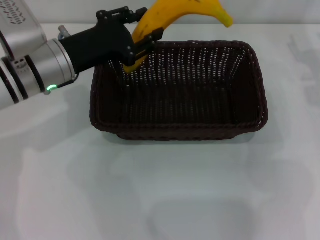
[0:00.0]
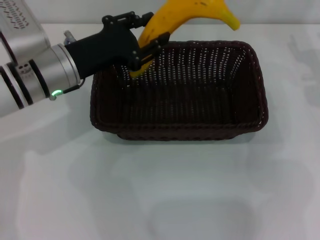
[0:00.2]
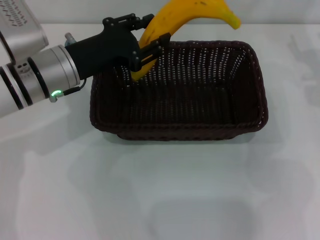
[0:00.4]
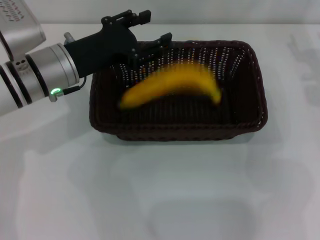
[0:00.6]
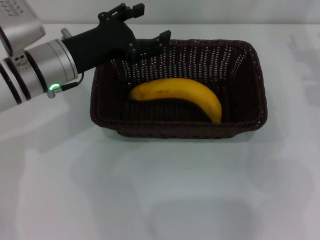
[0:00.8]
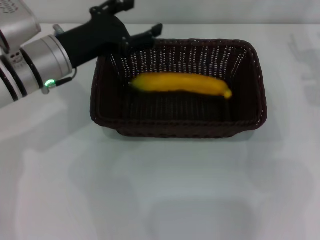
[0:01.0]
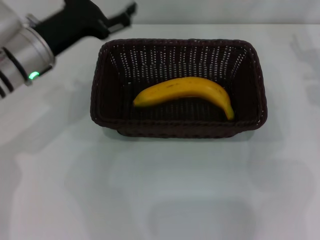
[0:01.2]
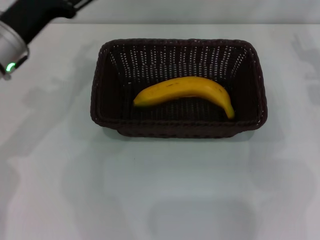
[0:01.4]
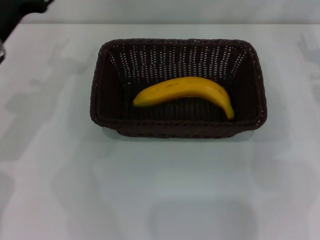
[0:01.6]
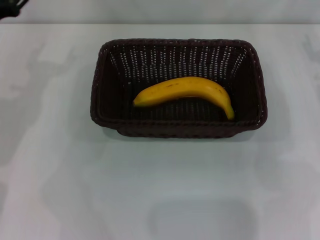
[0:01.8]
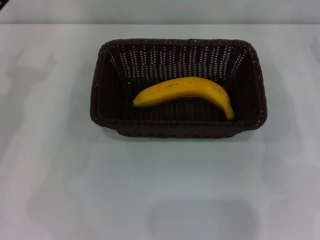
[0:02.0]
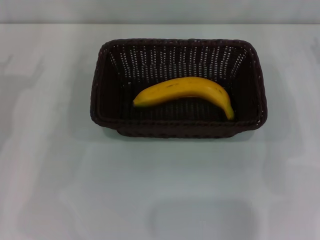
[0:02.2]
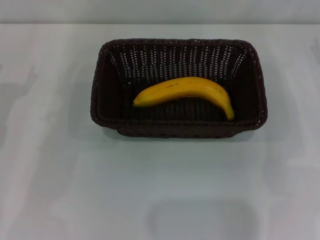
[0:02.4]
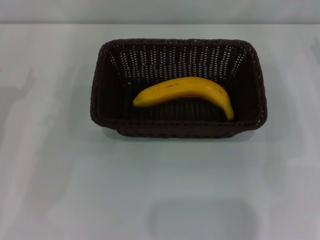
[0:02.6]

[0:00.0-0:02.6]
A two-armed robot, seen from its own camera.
0:00.0 to 0:01.2: The left gripper opens its fingers.
0:01.2 to 0:02.6: The left gripper is displaced to the left and backward by about 15 cm.

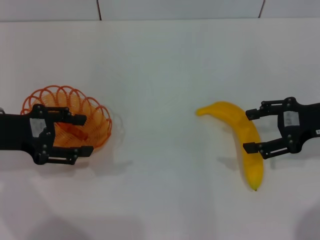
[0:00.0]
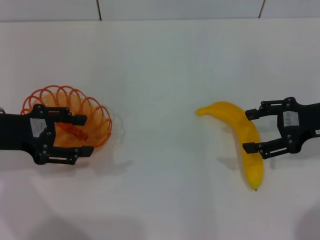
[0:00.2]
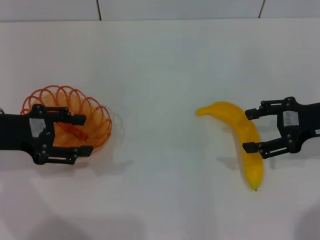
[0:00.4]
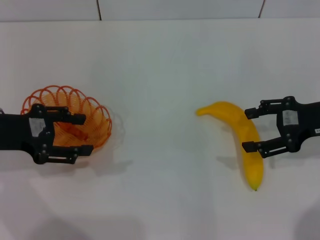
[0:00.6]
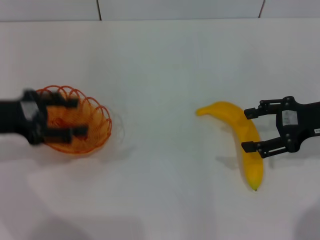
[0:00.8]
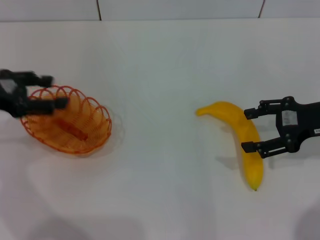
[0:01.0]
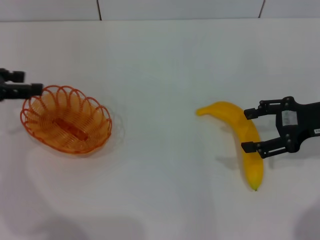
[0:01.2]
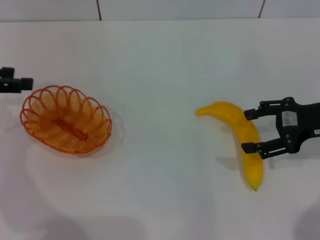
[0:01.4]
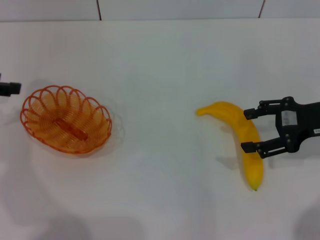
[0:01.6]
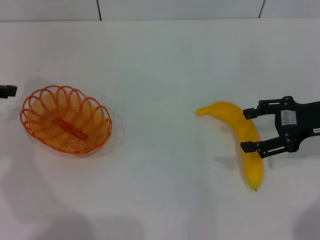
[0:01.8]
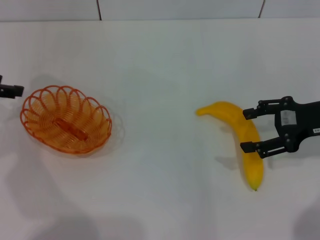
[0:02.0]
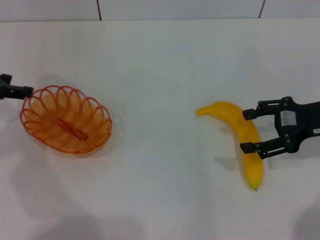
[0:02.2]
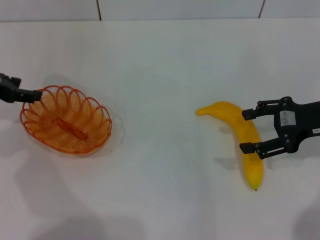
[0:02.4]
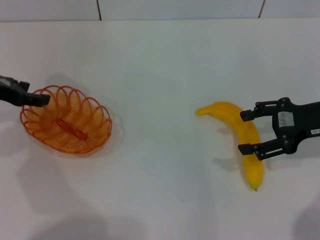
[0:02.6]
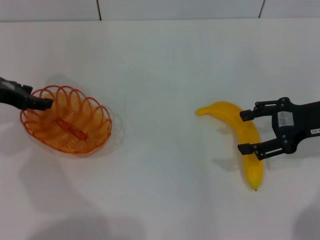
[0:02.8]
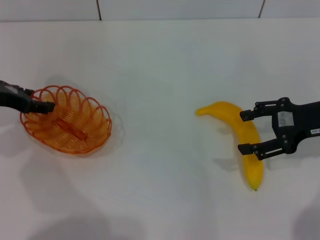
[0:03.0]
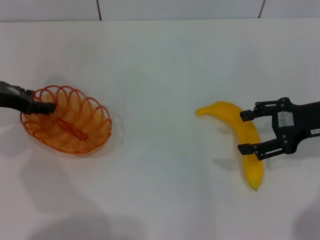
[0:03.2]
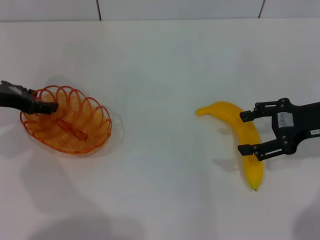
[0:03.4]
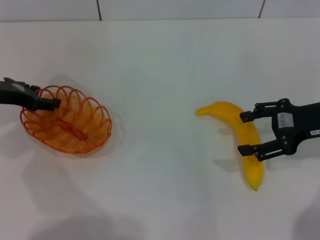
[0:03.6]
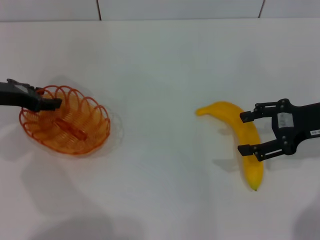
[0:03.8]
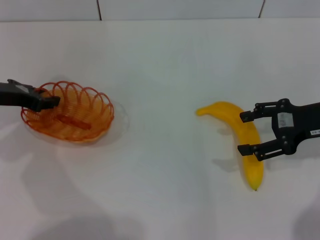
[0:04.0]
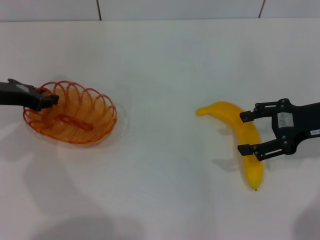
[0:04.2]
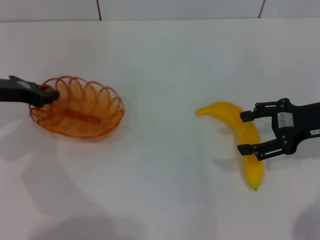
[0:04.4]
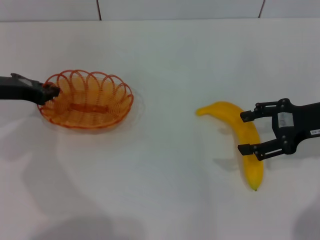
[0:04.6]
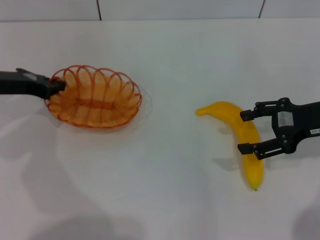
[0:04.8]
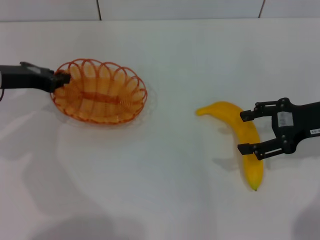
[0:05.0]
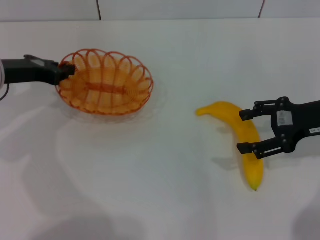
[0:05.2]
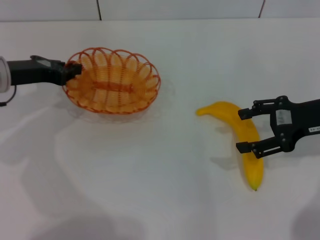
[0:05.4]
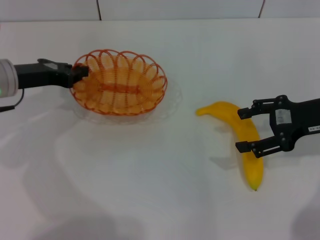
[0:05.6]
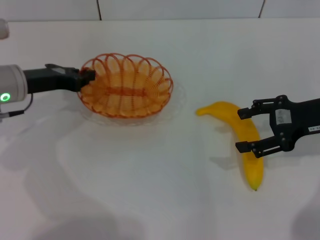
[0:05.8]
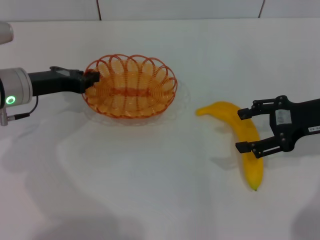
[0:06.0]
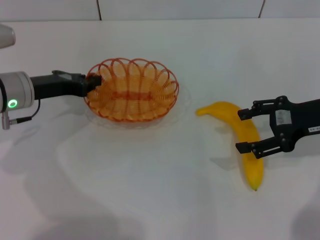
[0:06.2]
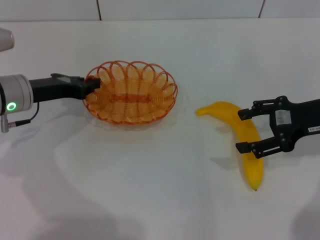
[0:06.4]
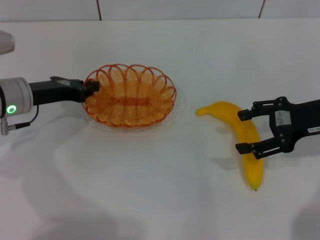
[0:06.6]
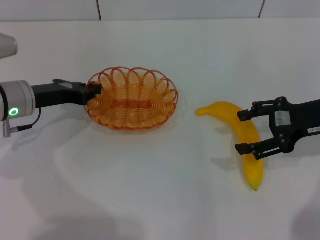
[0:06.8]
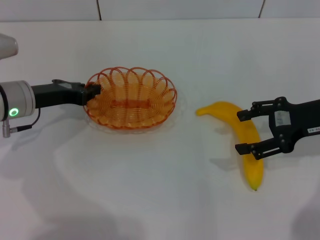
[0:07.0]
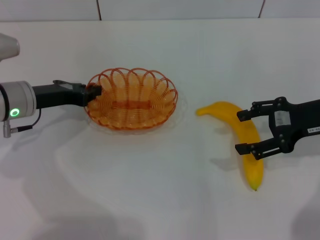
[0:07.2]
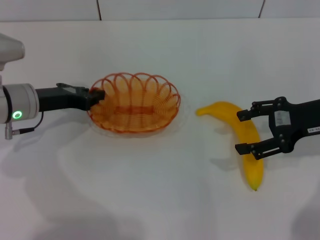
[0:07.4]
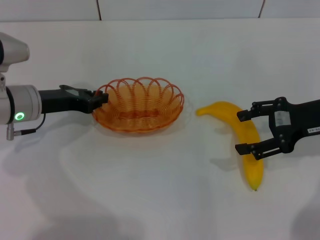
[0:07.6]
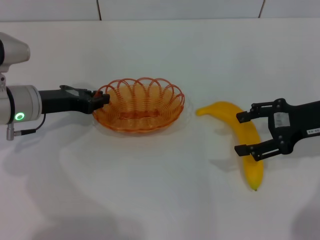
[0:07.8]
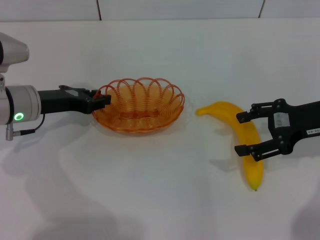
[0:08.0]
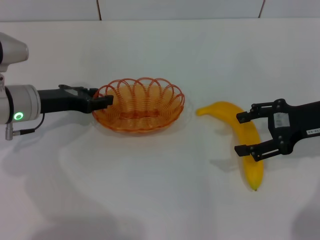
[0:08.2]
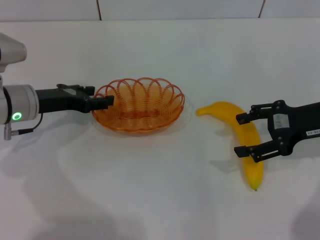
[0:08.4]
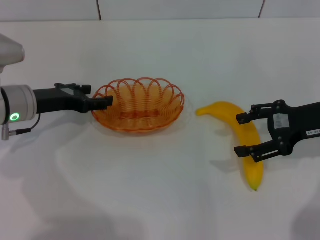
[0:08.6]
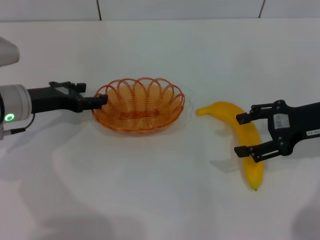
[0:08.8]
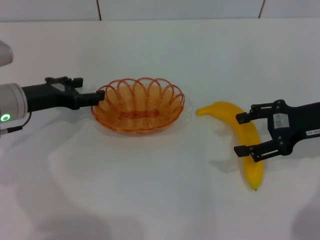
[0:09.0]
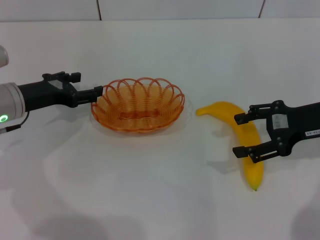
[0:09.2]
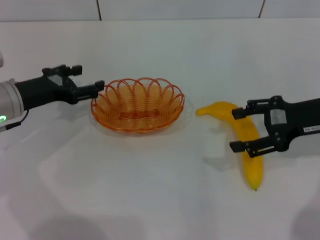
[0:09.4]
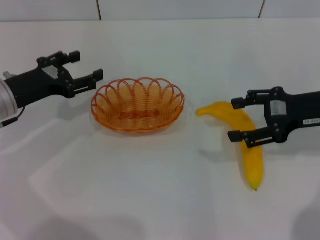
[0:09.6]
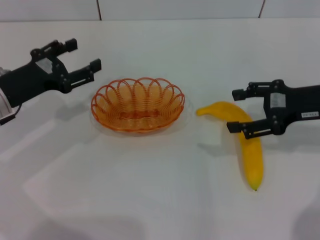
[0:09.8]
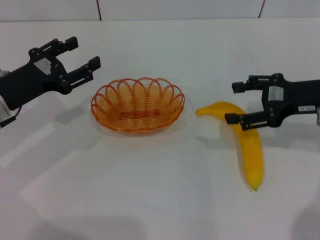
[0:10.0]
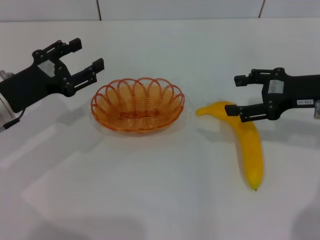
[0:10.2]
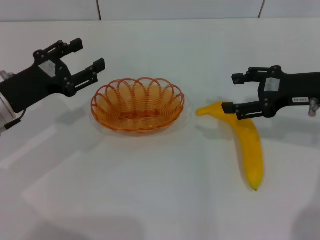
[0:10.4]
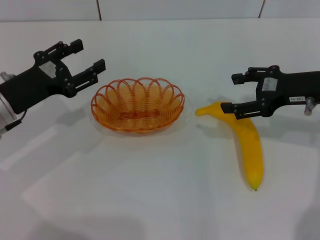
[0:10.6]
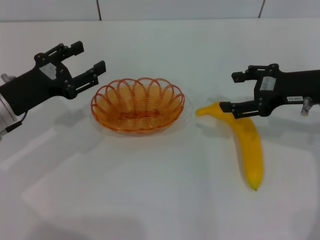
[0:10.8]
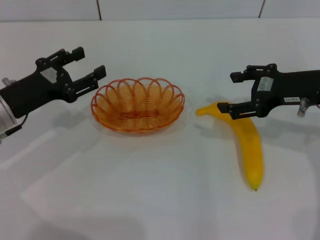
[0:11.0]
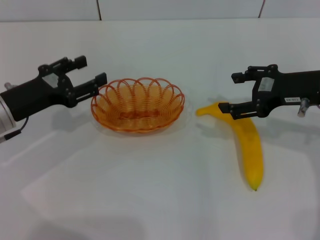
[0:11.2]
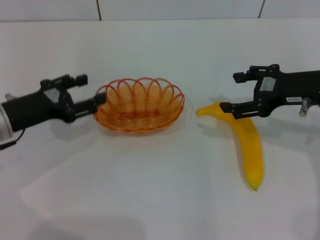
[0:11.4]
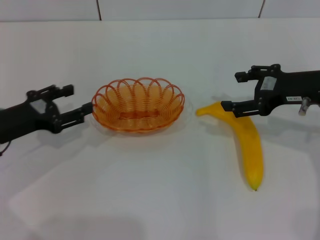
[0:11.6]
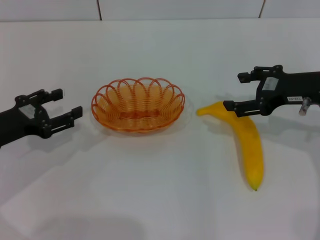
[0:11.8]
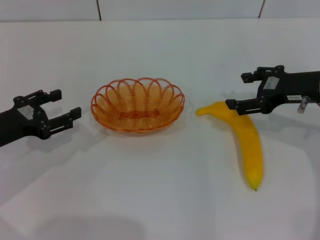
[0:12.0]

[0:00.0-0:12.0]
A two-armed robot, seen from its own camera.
Step, 0:00.0 to 0:05.2: Pick up the basket with the left gripper.
Step, 0:05.4 to 0:08.6: Place the basket in the center of view with the left gripper.
0:00.0 to 0:01.6: The left gripper shifts some 10 cm to the left and upward.
0:01.6 to 0:03.0: The left gripper heads downward, covering some 5 cm.
0:03.0 to 0:04.4: The left gripper closes.
0:04.4 to 0:06.0: The grippers make only small movements.
0:06.0 to 0:07.6: There are only small adjustments of the grippers.
0:07.6 to 0:09.0: The left gripper opens up.
0:10.4 to 0:12.0: The left gripper shifts by roughly 5 cm.

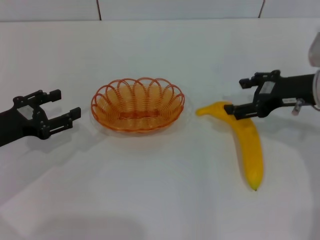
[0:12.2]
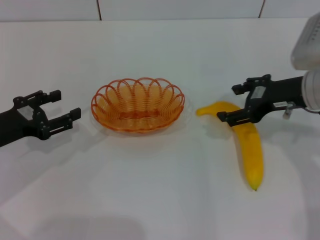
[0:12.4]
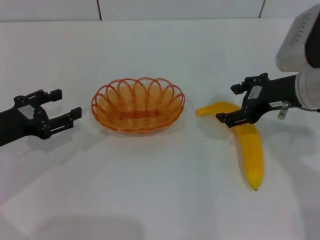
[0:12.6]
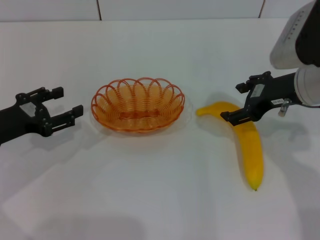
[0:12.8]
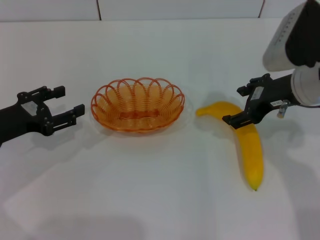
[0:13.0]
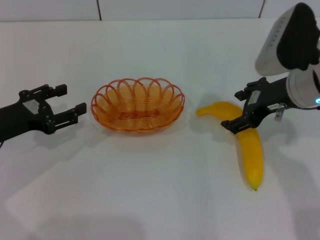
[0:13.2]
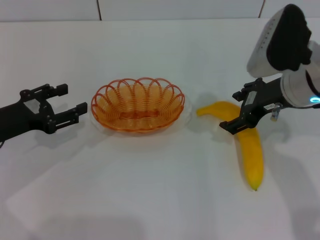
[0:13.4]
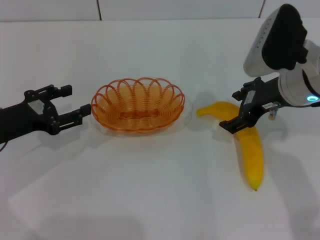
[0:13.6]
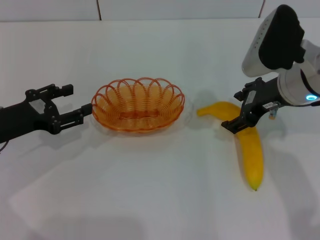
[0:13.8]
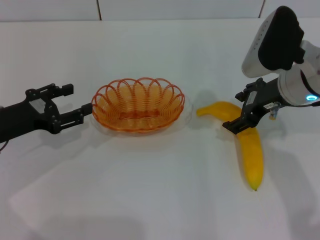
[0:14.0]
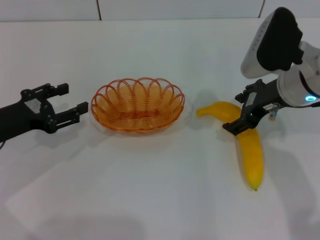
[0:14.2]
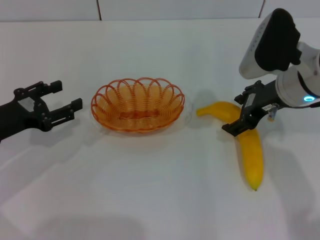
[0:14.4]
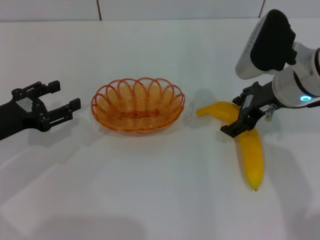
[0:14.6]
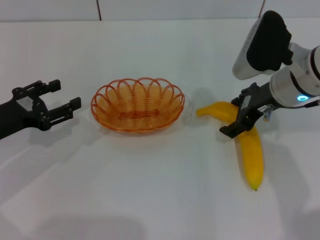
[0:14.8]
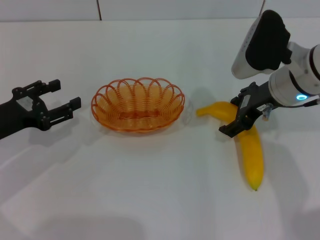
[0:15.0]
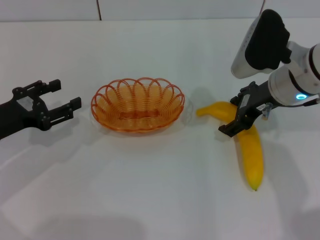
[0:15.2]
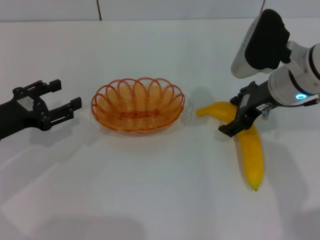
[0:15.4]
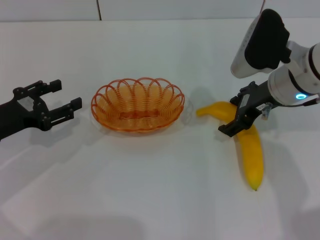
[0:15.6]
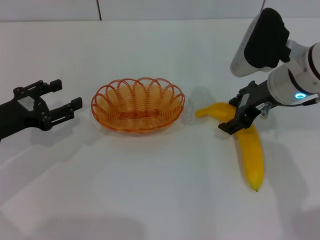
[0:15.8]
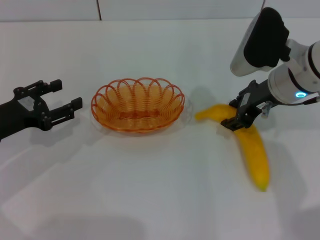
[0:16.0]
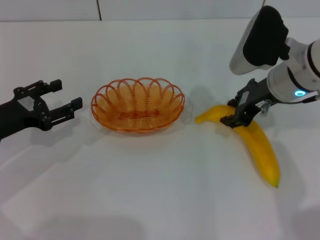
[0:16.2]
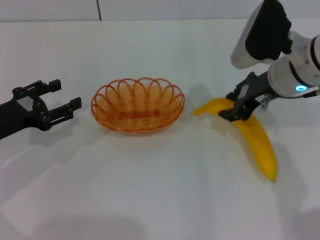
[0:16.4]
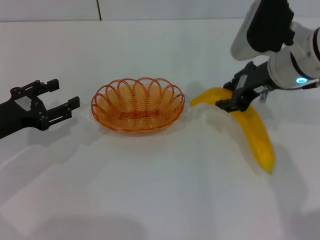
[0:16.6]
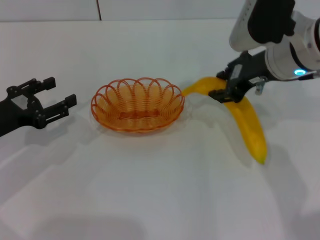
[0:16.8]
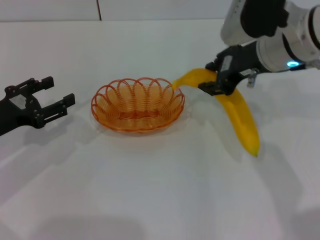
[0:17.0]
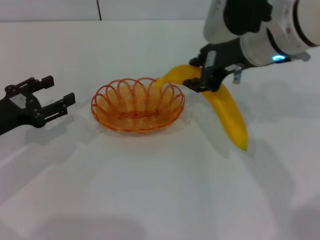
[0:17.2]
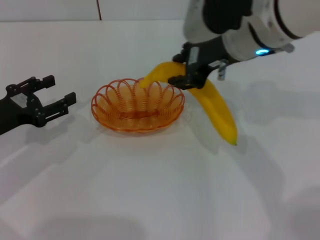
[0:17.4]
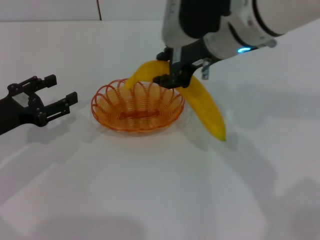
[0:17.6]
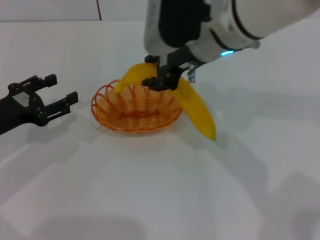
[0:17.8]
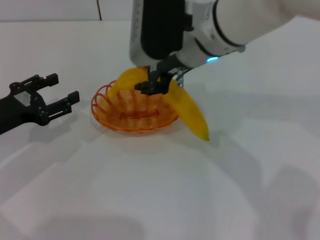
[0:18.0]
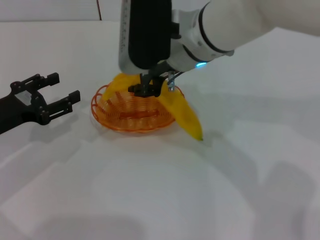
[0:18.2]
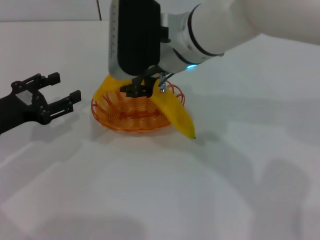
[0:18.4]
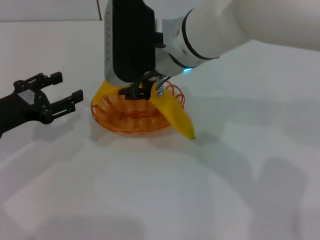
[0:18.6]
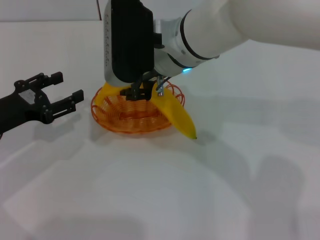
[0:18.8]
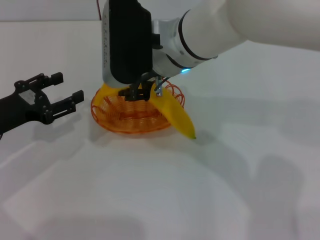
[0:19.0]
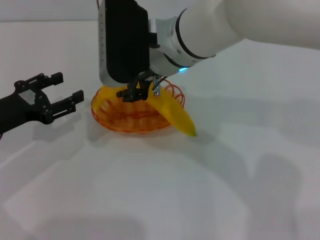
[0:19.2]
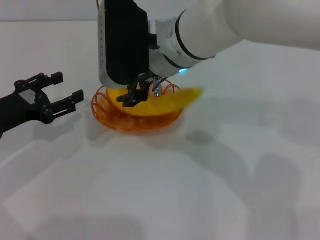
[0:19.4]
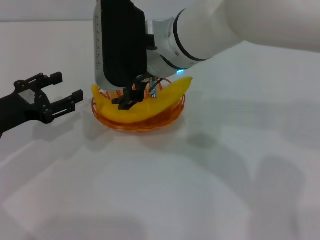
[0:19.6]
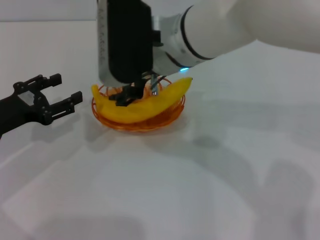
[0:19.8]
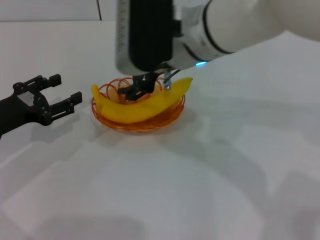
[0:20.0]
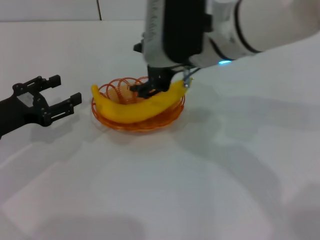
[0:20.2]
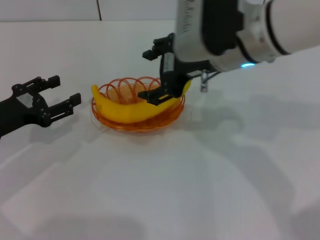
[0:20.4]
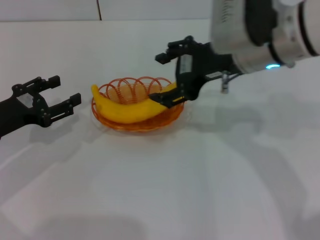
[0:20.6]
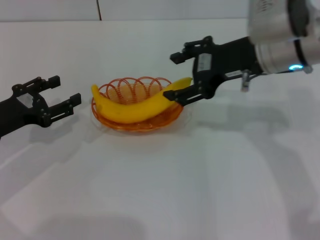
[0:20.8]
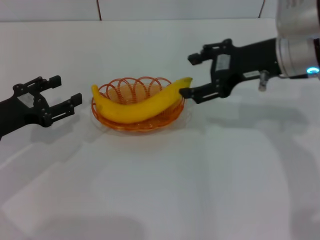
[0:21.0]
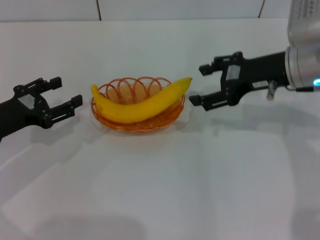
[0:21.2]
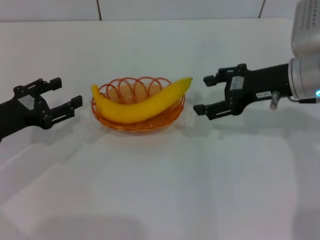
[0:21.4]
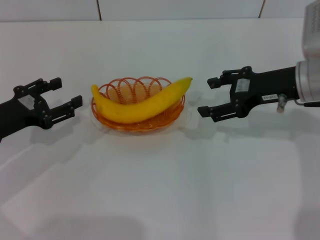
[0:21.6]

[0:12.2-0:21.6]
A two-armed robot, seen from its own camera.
Step, 0:12.2 to 0:17.2: Pick up the banana with the right gripper.
Step, 0:17.4 to 0:20.6: Place the banana into the basket with the right gripper.
0:12.2 to 0:13.8: The right gripper heads to the left, covering some 5 cm.
0:13.8 to 0:15.4: The grippers move only a little.
0:15.4 to 0:17.0: The right gripper is displaced upward by about 5 cm, and closes.
0:17.0 to 0:18.4: The right gripper moves to the left, about 15 cm.
0:18.4 to 0:20.0: The right gripper opens its fingers.
0:20.0 to 0:21.6: The right gripper heads to the right, covering some 20 cm.
